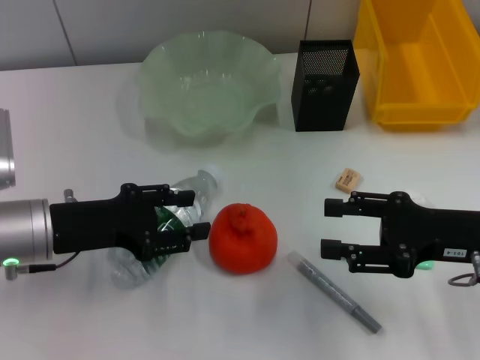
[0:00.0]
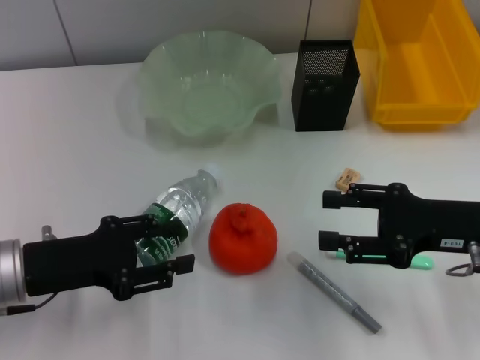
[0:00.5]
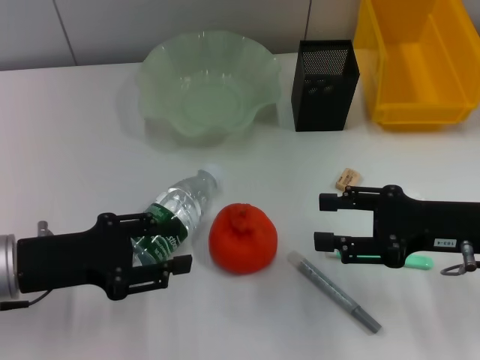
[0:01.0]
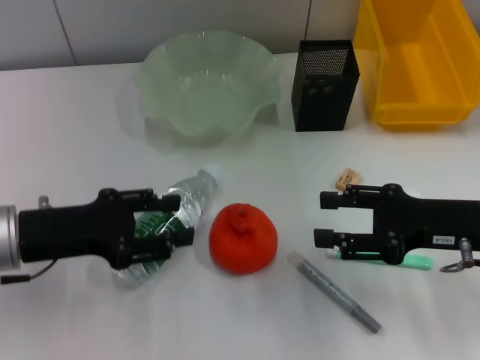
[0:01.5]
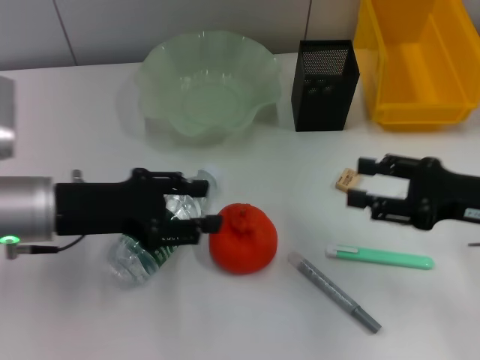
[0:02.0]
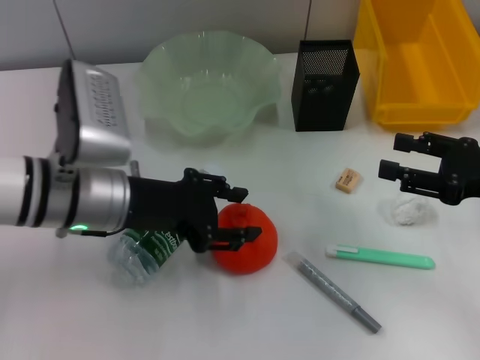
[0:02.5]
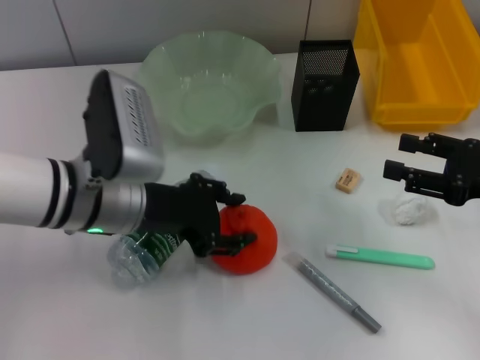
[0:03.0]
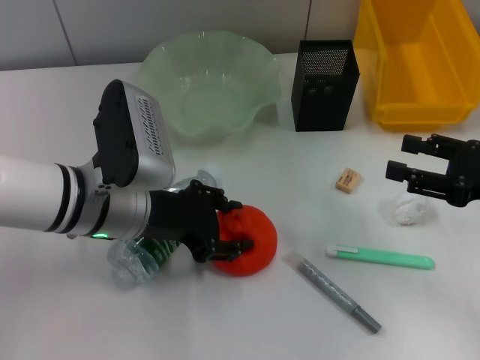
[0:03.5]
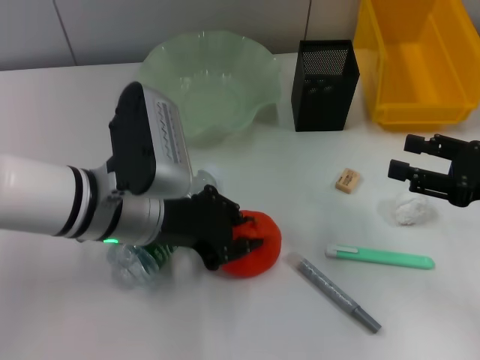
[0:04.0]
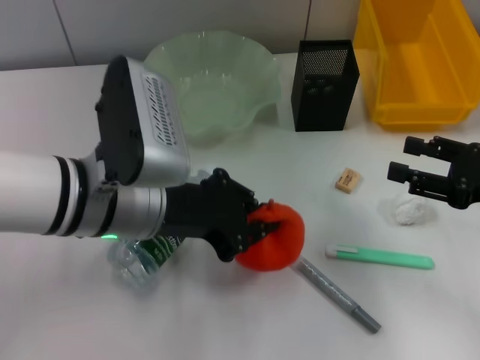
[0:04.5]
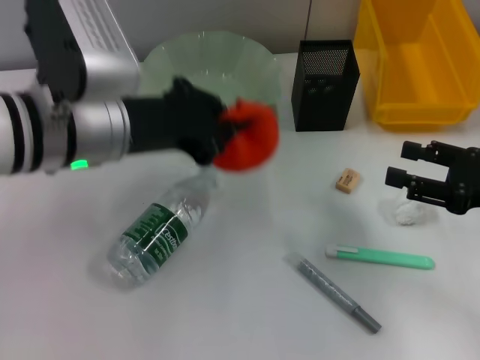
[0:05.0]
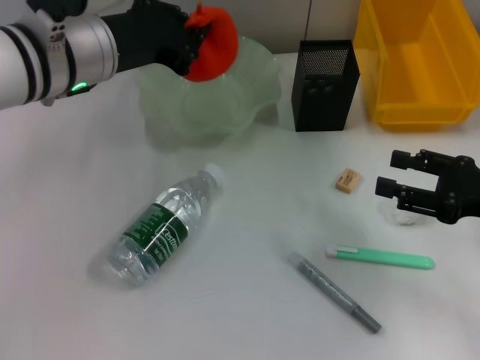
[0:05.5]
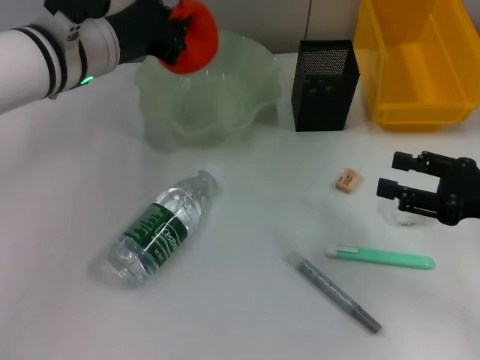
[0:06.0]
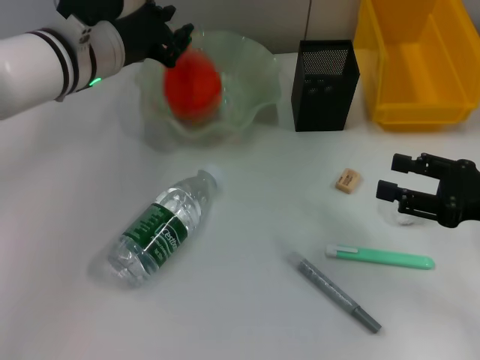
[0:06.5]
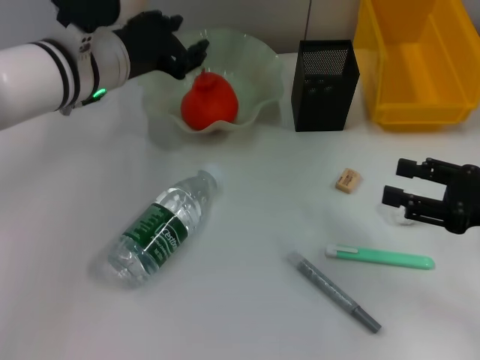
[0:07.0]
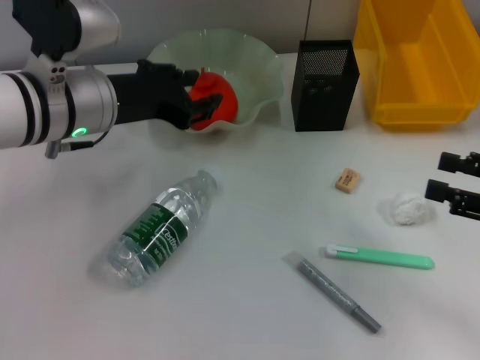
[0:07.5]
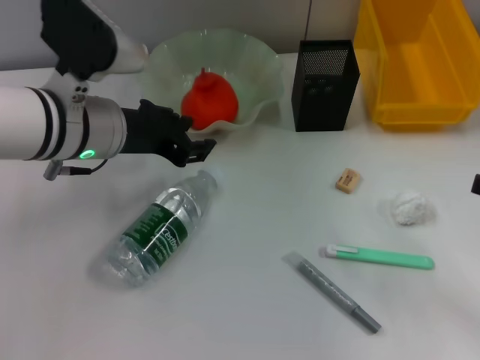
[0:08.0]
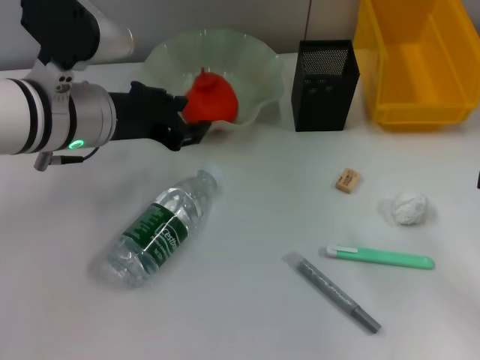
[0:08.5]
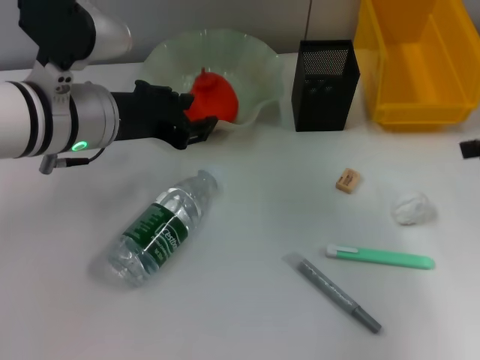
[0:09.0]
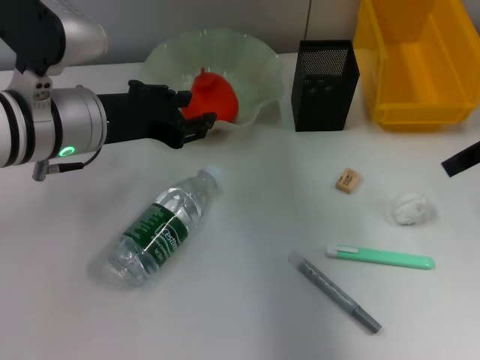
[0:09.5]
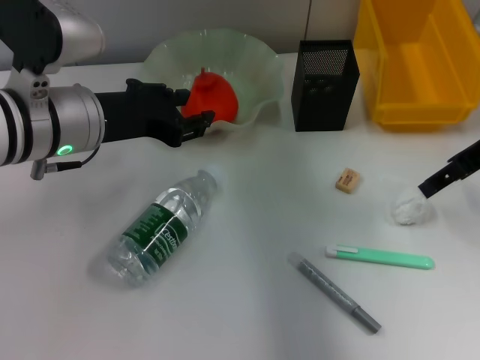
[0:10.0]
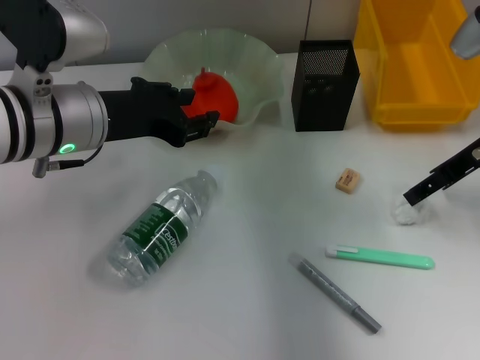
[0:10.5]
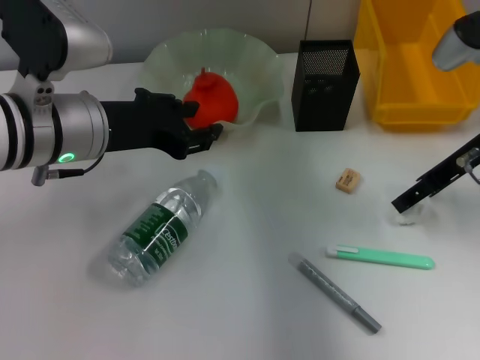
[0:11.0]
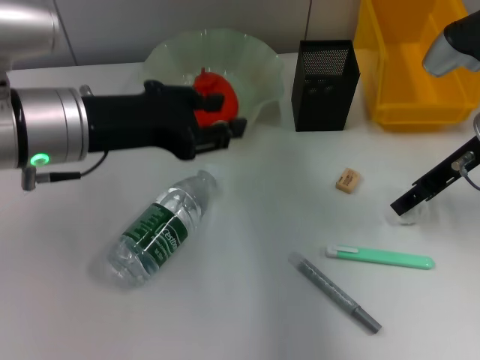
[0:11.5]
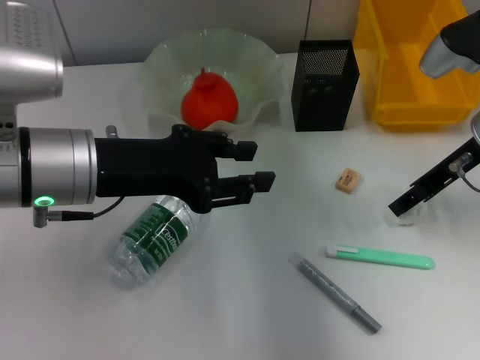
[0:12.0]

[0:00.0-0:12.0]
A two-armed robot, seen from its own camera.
Step, 0:00.0 to 0:03.0: Grab the orange with the left hand.
Step, 0:03.5 to 0:06.5: Place the orange into the fruit bowl with the left hand.
0:00.0 to 0:02.0: The grippers stay close to where they were, moving slightly.
0:02.0 to 0:04.0: The left gripper moves to the right, approximately 10 cm, and closes up.
0:04.0 to 0:06.0: The left gripper travels forward and upward by about 10 cm, and closes up.
0:06.0 to 0:08.0: The left gripper changes place by roughly 5 cm, and opens up. Meanwhile the right gripper shifts roughly 5 cm to the right.
0:08.0 to 0:10.0: The right gripper heads forward, to the left and upward, covering about 20 cm.
0:10.0 to 0:12.0: The right gripper changes place by some 5 cm.

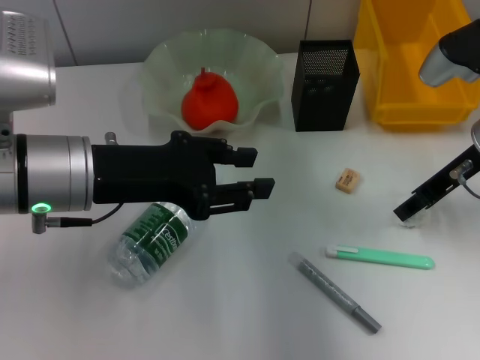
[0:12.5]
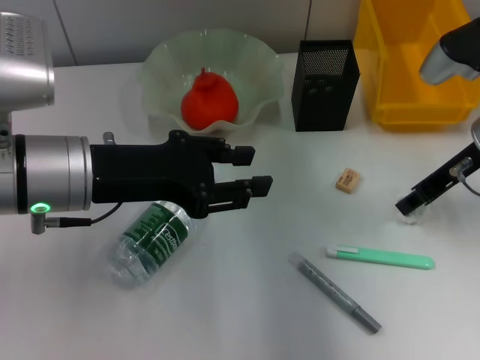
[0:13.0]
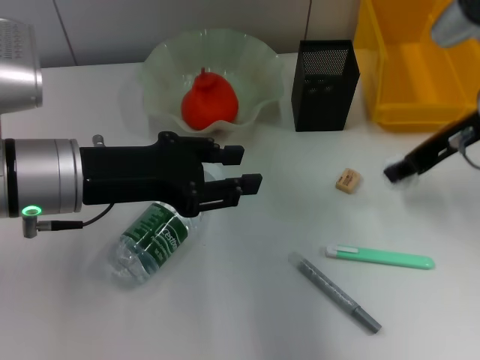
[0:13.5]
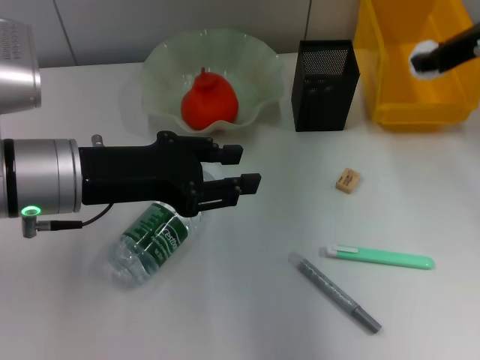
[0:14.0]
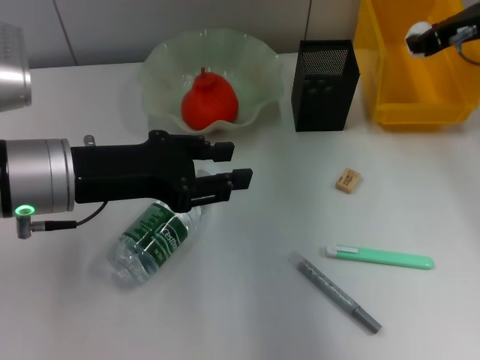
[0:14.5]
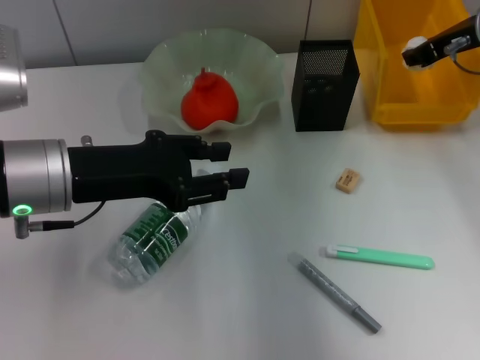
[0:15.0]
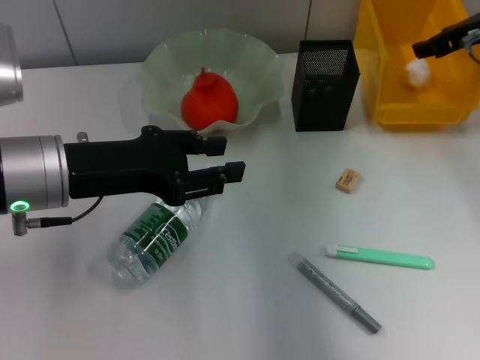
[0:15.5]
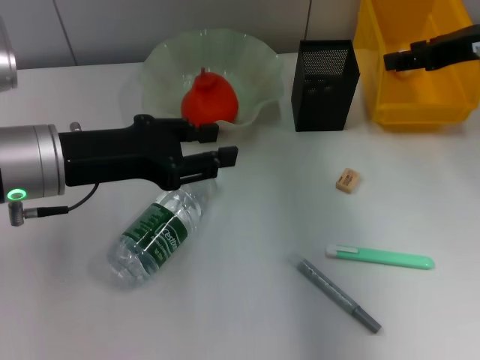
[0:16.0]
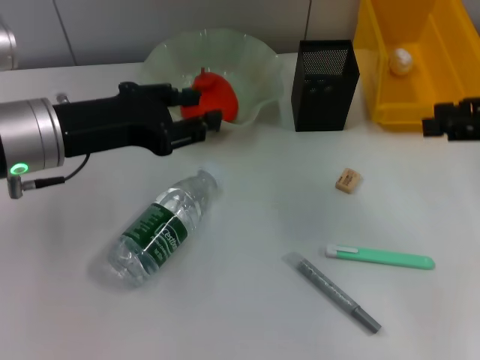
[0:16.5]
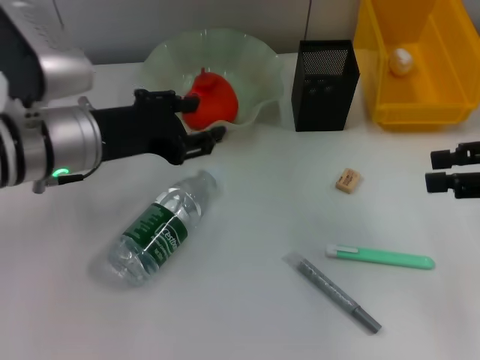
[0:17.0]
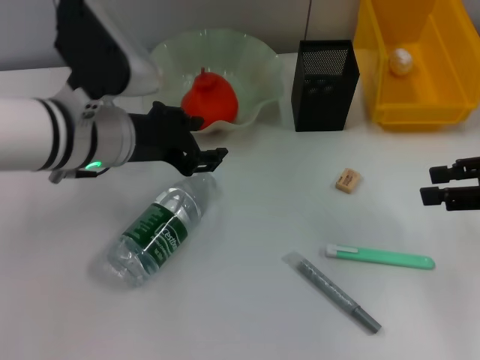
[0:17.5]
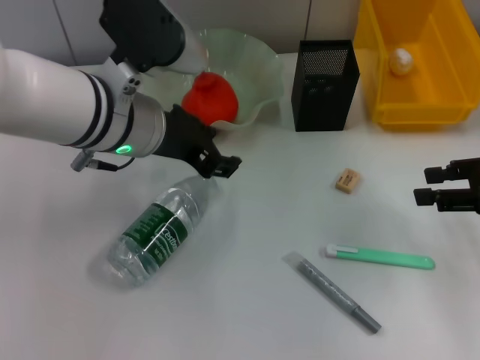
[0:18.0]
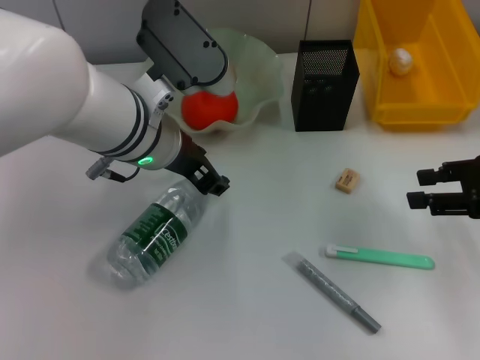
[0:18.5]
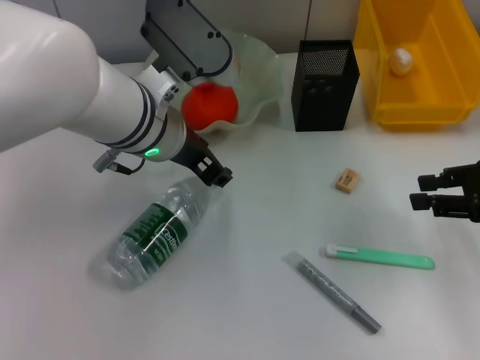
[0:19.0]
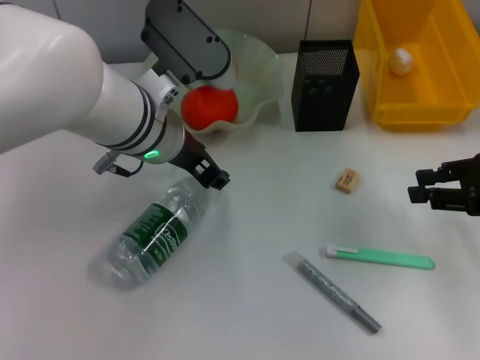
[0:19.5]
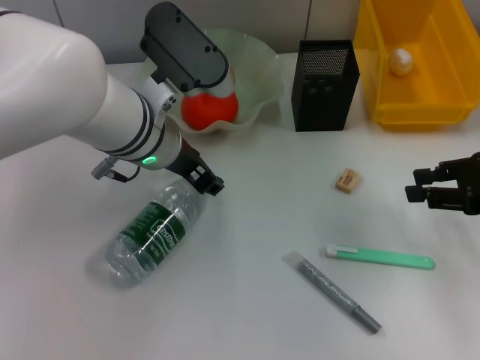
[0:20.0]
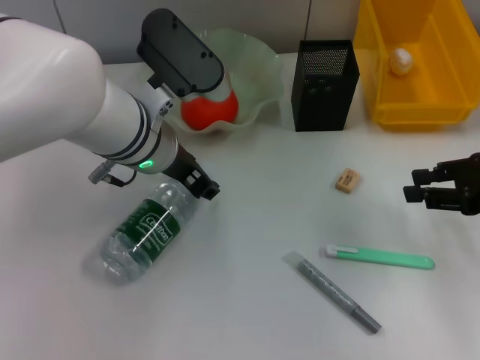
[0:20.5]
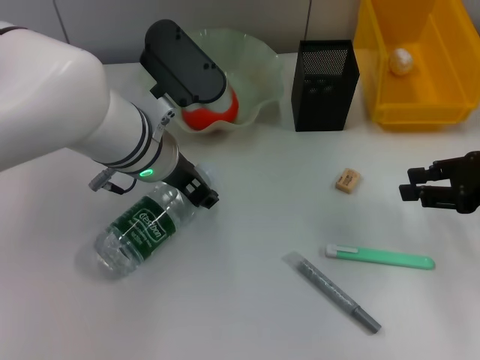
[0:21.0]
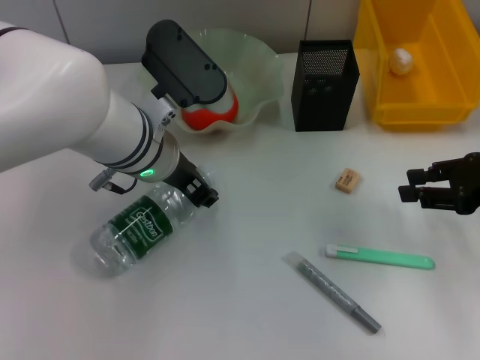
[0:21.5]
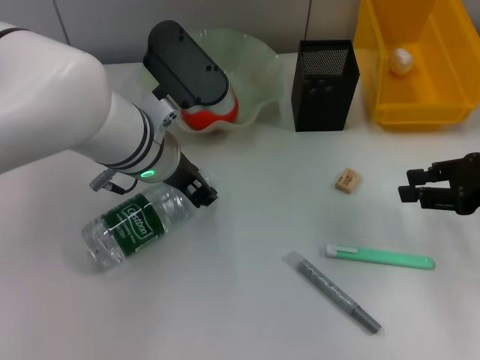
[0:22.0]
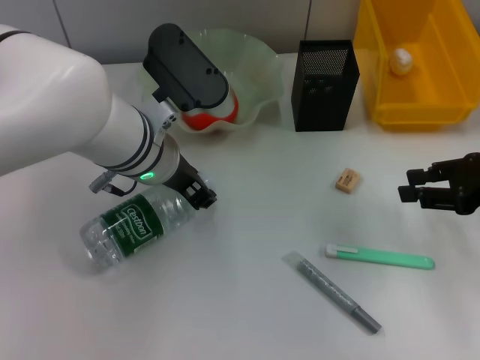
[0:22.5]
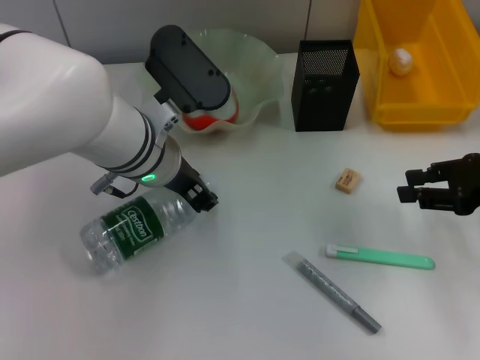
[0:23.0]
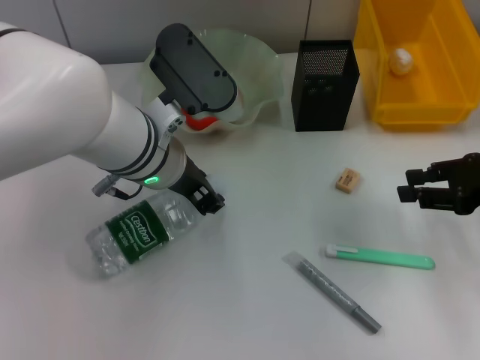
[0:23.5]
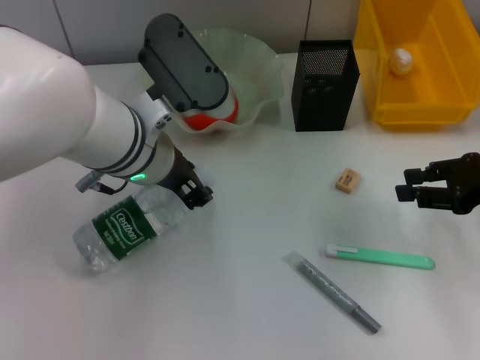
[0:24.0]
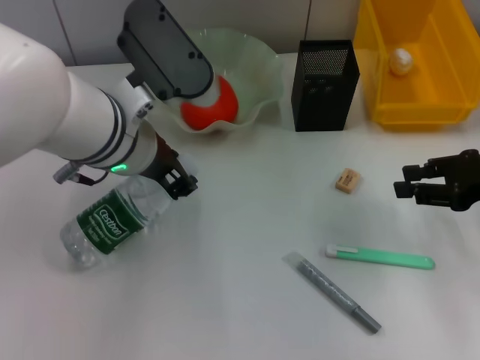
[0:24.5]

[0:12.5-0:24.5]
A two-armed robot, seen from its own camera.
Step, 0:13.0 to 0:15.5: Place the paper ball into the trash can with the right hand.
Step, 0:16.0 to 0:23.5: Grab the water bottle with the left hand.
0:12.5 to 0:14.5: The right gripper moves forward and upward, approximately 10 cm, and closes its fingers.
0:14.5 to 0:16.5: The right gripper is displaced backward and to the right by about 15 cm, and opens its fingers.
0:16.5 to 0:18.5: The left gripper goes approximately 10 cm to the right. The right gripper heads downward, covering some 5 cm.
0:18.5 to 0:20.5: There are only small adjustments of the grippers.
0:20.5 to 0:22.5: The two grippers keep their place.
0:22.5 to 0:24.5: There are only small adjustments of the grippers.

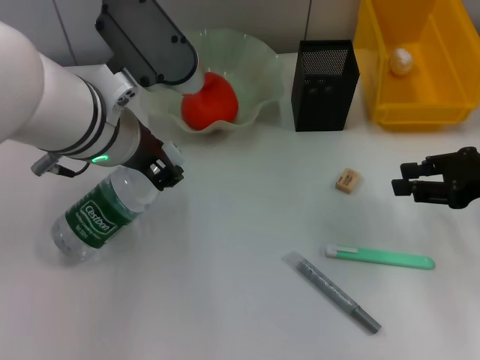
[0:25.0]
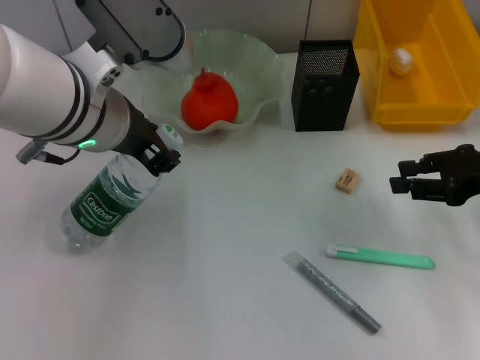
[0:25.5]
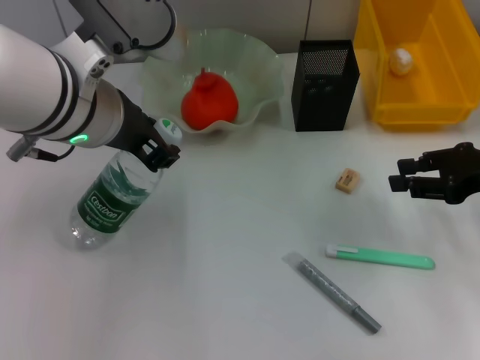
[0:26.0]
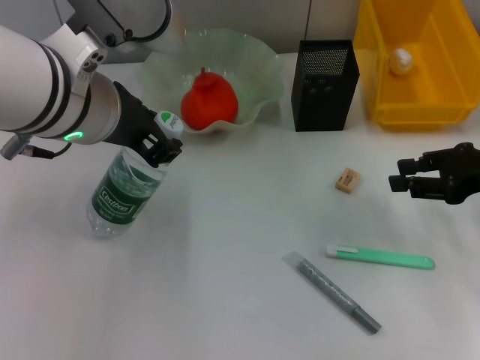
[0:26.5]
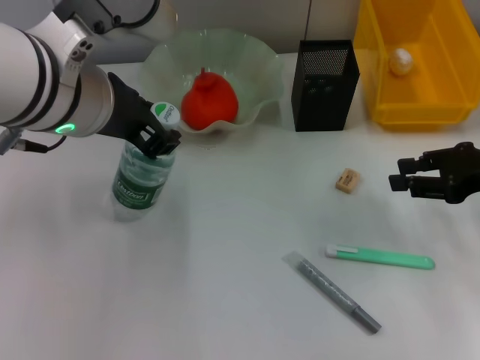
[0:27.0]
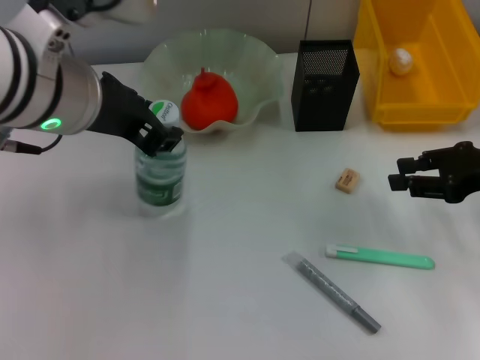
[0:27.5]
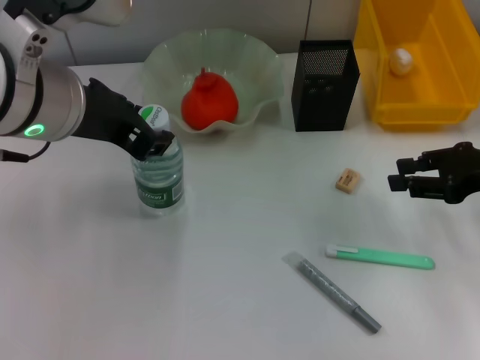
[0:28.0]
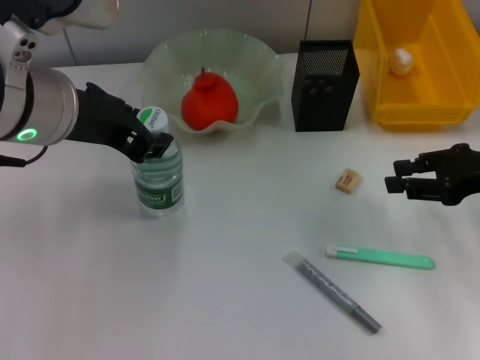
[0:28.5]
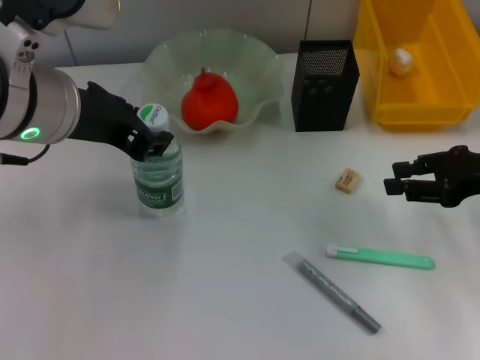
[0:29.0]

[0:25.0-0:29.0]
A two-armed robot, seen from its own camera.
0:25.0 to 0:27.0: The left gripper heads upward, covering some 5 cm.
0:27.0 to 0:29.0: The grippers make only small movements.
